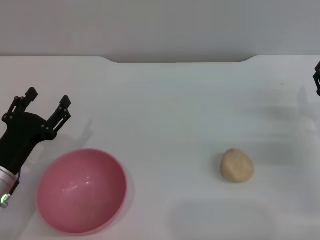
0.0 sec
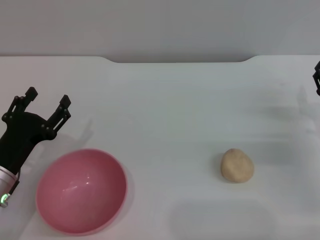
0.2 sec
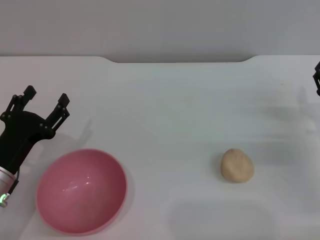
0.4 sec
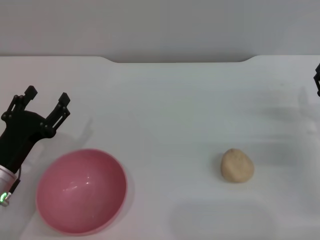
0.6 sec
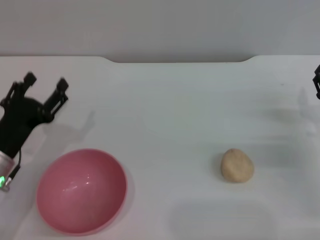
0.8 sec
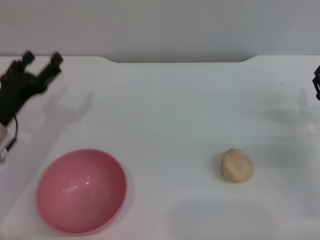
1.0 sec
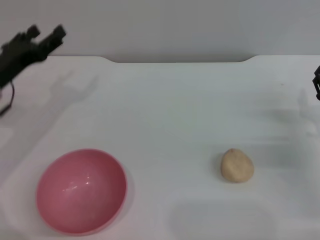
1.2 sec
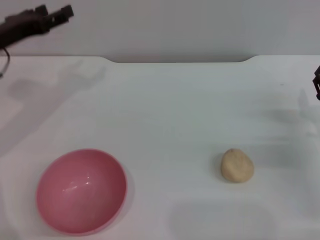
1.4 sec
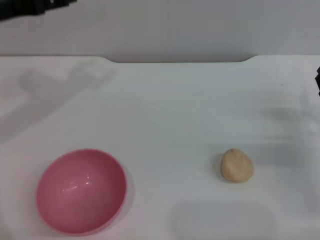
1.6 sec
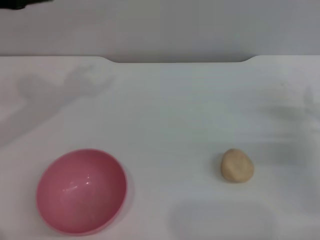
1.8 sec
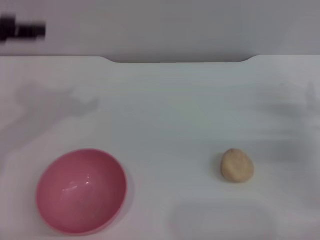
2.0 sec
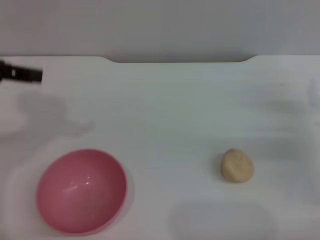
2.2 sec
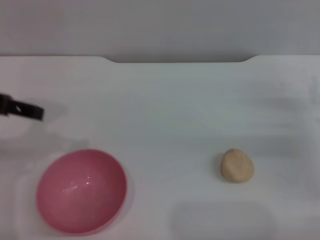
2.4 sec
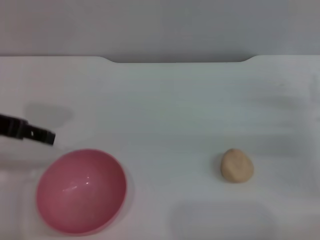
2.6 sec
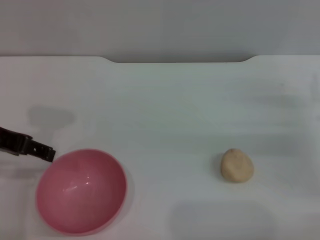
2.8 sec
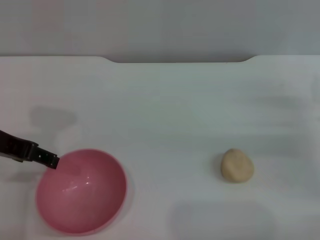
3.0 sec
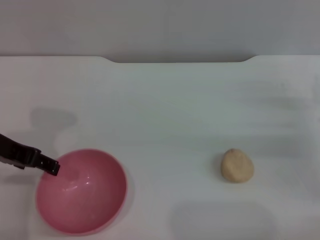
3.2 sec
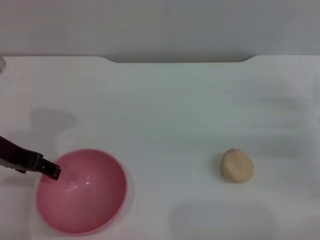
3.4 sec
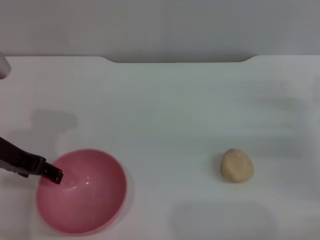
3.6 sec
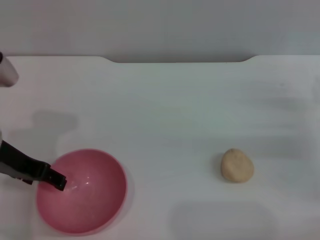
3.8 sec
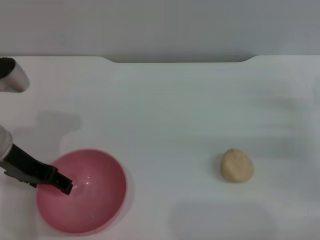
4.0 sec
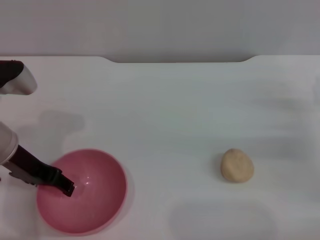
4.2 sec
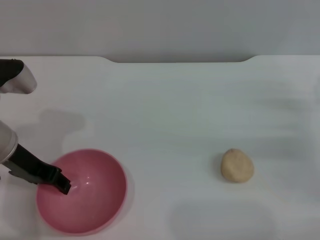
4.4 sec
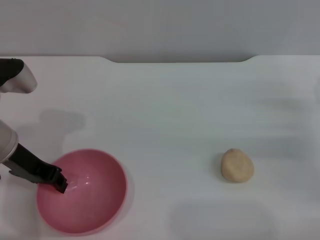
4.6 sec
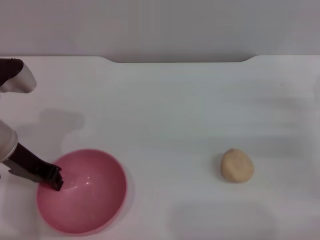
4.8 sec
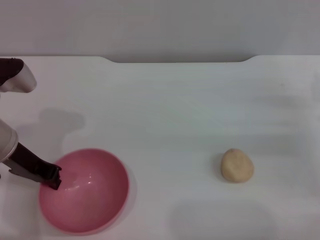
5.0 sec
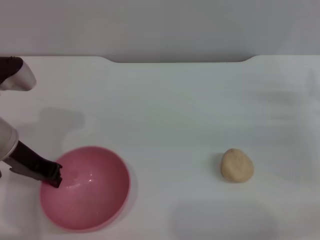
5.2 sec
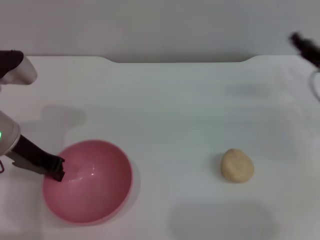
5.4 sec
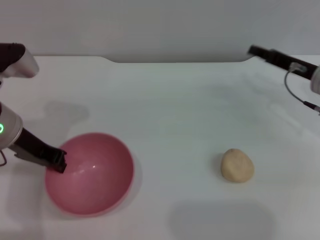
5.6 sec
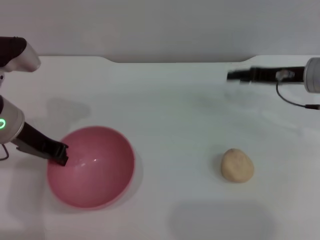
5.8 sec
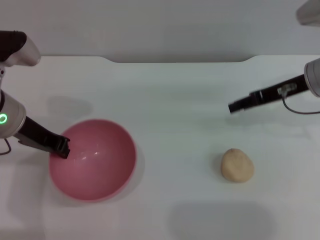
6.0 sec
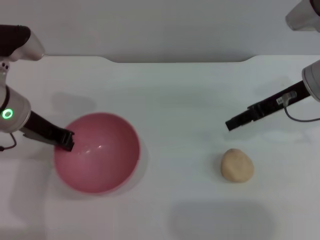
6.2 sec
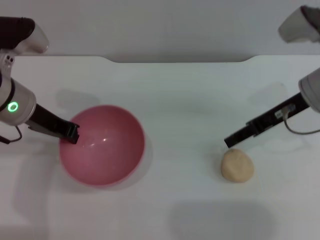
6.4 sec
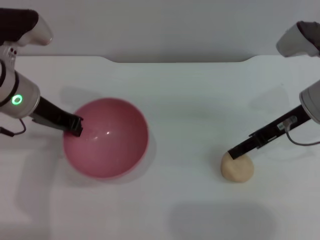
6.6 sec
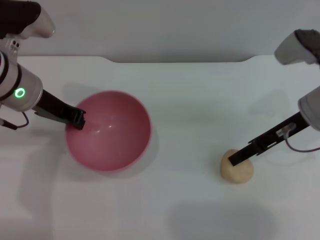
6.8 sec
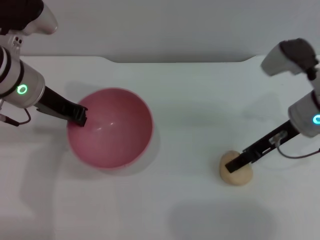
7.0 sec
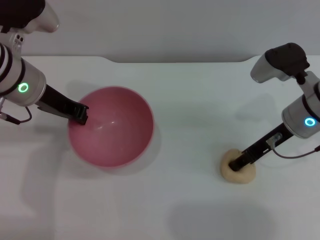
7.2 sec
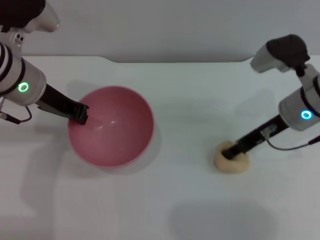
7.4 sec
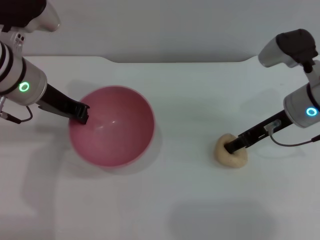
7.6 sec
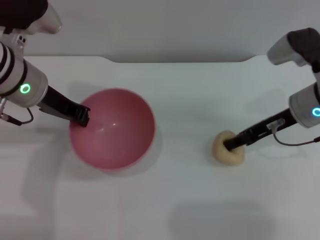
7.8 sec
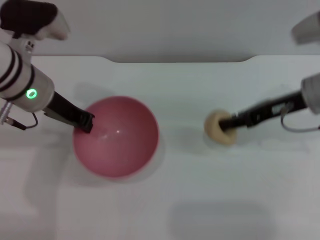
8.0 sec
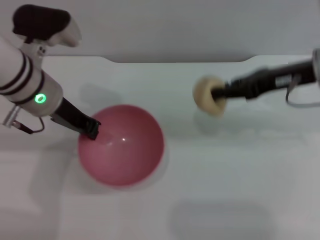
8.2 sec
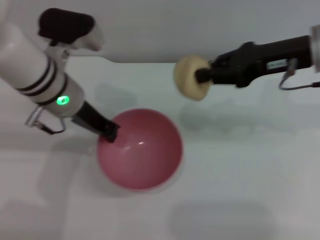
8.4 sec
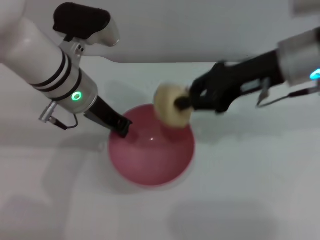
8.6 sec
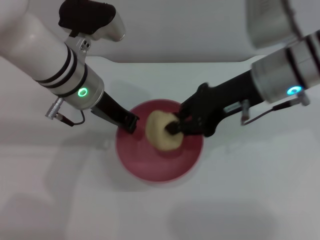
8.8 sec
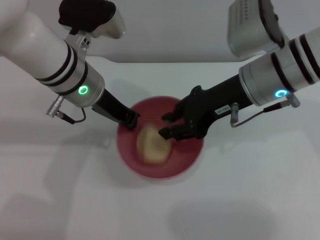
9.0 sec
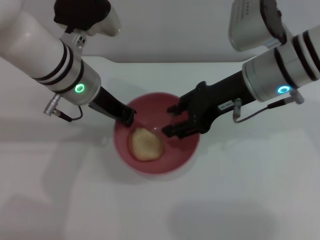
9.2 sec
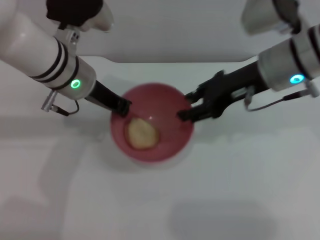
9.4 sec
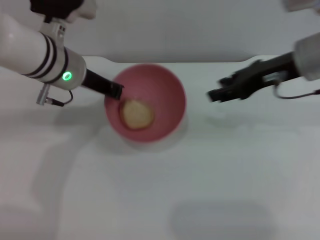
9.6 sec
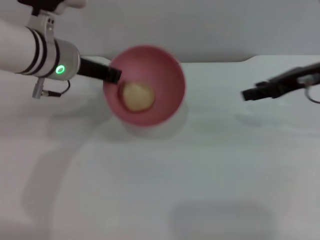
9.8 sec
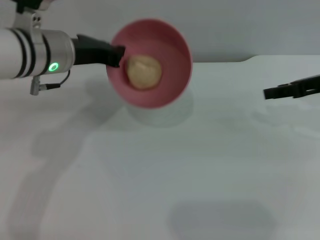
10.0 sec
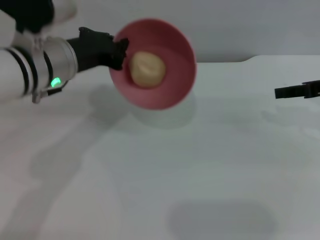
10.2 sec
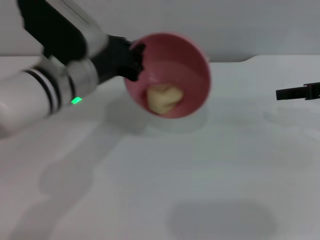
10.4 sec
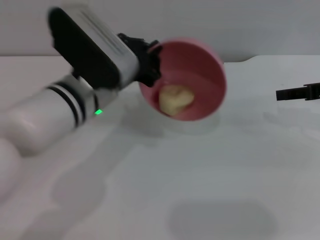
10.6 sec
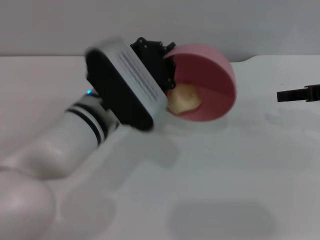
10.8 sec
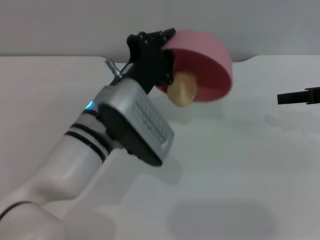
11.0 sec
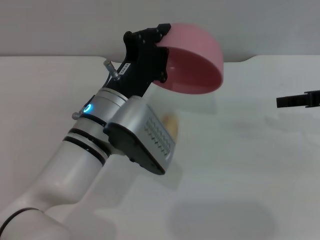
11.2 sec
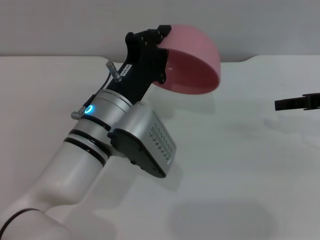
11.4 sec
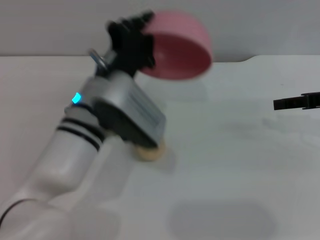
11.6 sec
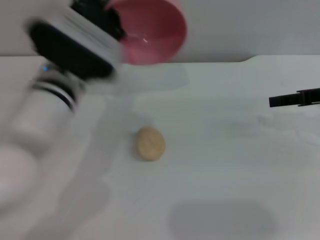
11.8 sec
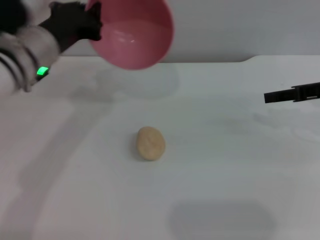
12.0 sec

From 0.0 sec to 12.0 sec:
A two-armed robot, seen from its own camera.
Task of the whole recording: put the egg yolk pastry into the pink bowl and pour it out repeatedly.
Step, from 0.0 sec to 5.8 sec: Pick up the bowl with the left gripper.
Step, from 6.0 sec to 7.8 sec: Pick up the egg yolk pastry with the right gripper.
Step, from 8.0 sec to 9.2 sec: Place the egg yolk pastry into the bowl.
Step, from 9.4 sec to 11.6 sec: Pour the egg yolk pastry out of bowl.
From 0.0 sec to 1.6 sec: The left gripper goes some 25 cm upward and forward.
From 1.6 sec to 3.0 sec: The left gripper shifts about 10 cm backward.
From 3.0 sec to 4.4 sec: The left gripper is displaced downward by about 5 cm.
From 4.4 sec to 6.0 sec: The right gripper moves upward, forward and to the left, some 15 cm. The left gripper closes its fingers.
From 7.6 sec to 9.0 sec: The left gripper heads to the right, covering about 5 cm. The right gripper moves to the left and upward, approximately 10 cm, and closes up.
From 9.0 sec to 10.4 sec: The right gripper heads to the right, covering approximately 20 cm, and opens.

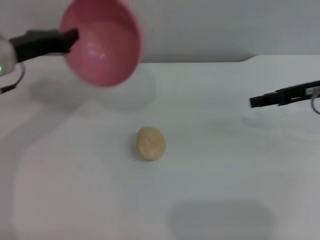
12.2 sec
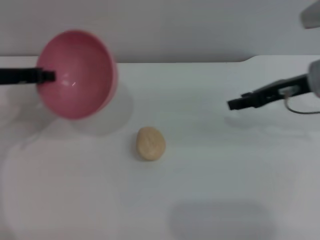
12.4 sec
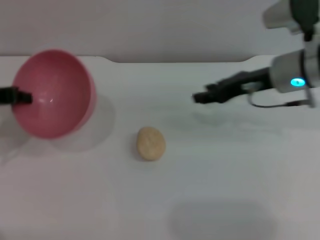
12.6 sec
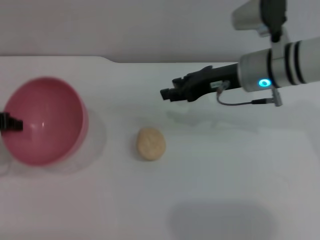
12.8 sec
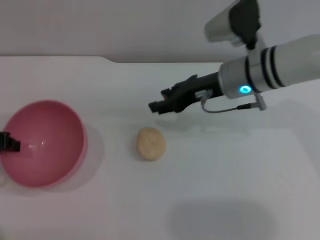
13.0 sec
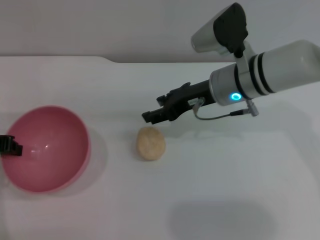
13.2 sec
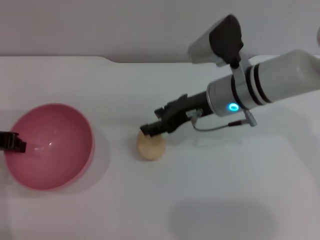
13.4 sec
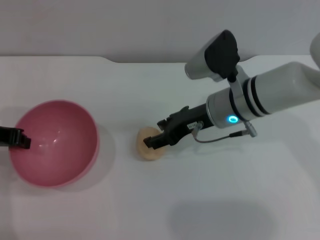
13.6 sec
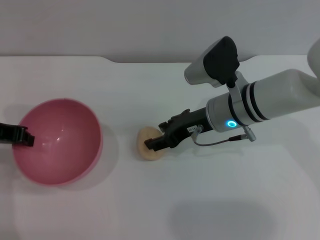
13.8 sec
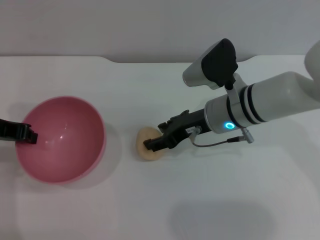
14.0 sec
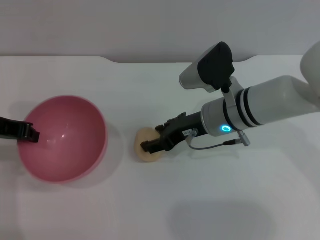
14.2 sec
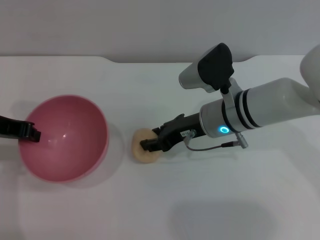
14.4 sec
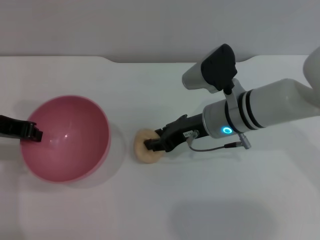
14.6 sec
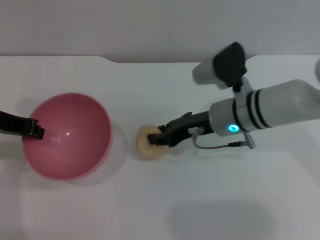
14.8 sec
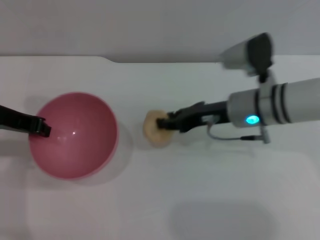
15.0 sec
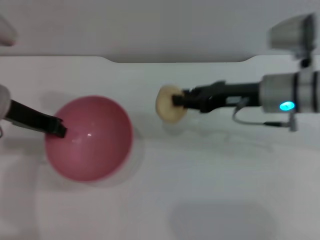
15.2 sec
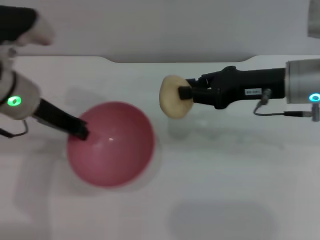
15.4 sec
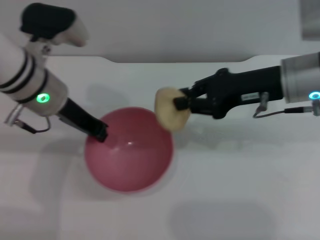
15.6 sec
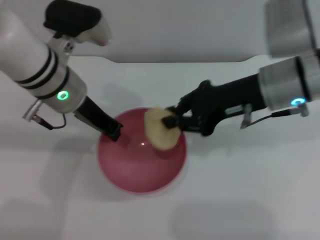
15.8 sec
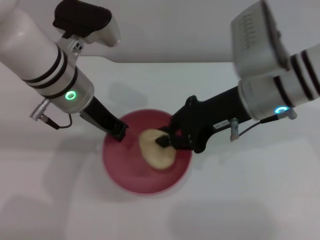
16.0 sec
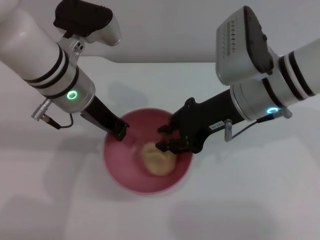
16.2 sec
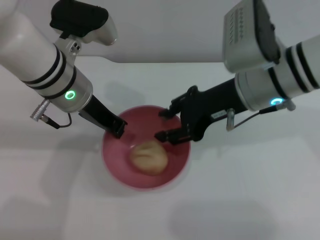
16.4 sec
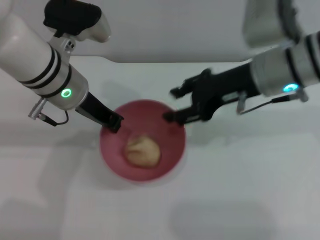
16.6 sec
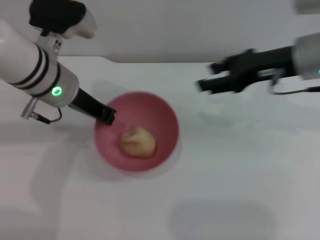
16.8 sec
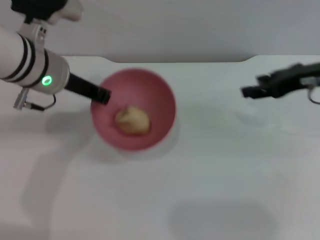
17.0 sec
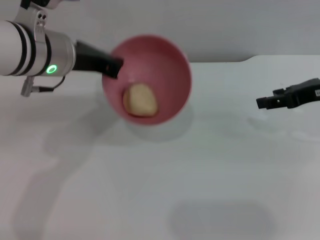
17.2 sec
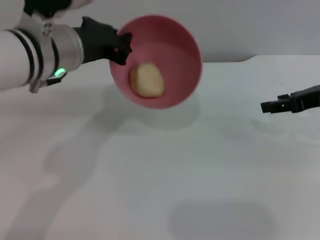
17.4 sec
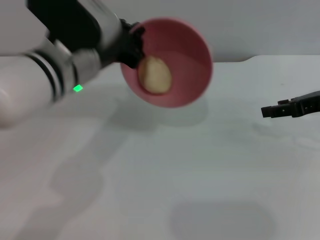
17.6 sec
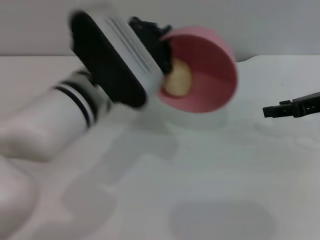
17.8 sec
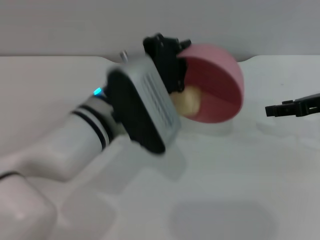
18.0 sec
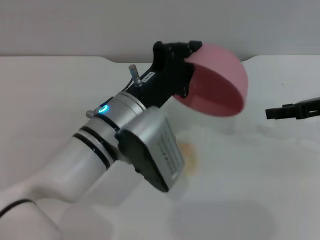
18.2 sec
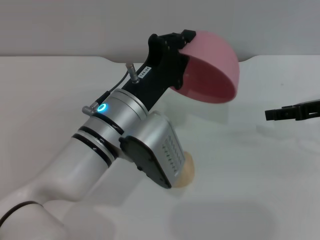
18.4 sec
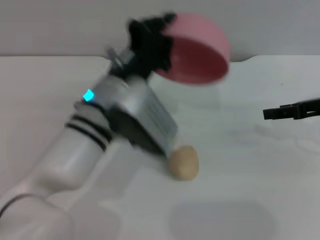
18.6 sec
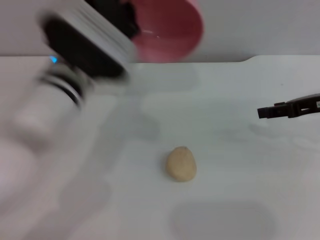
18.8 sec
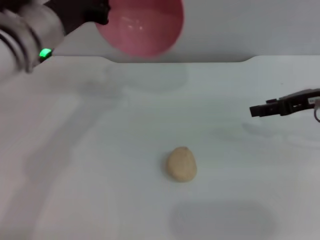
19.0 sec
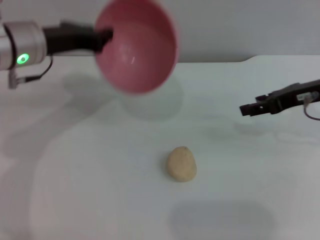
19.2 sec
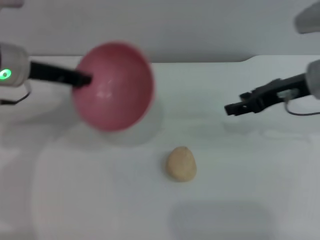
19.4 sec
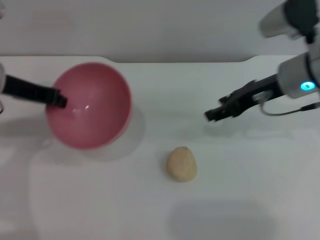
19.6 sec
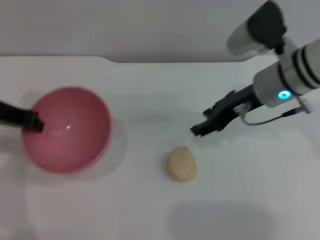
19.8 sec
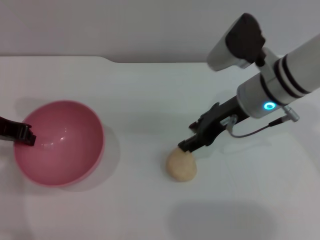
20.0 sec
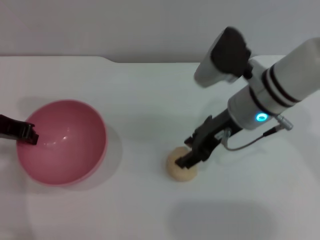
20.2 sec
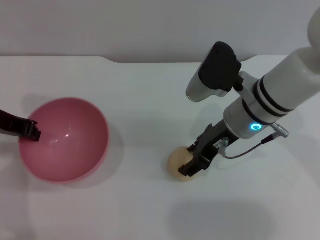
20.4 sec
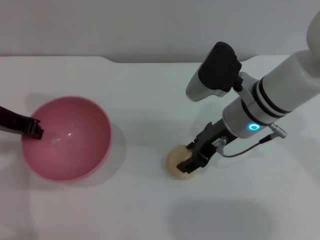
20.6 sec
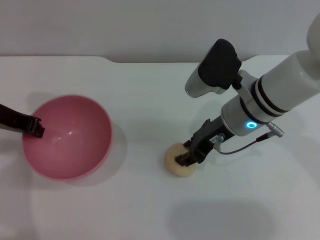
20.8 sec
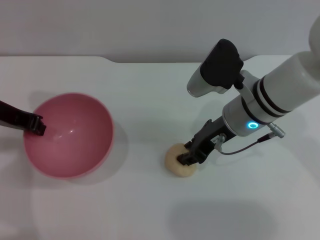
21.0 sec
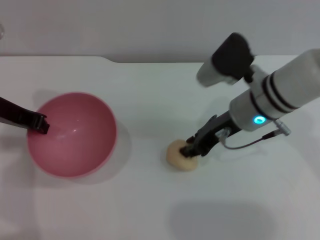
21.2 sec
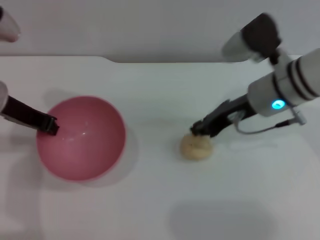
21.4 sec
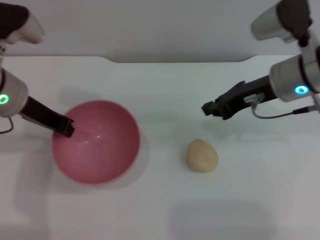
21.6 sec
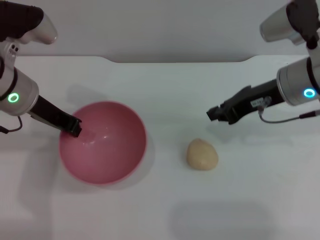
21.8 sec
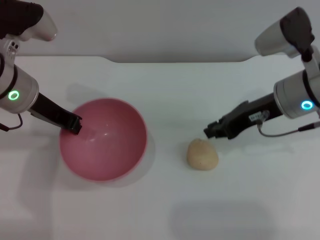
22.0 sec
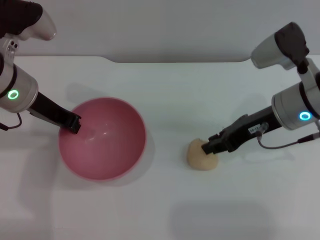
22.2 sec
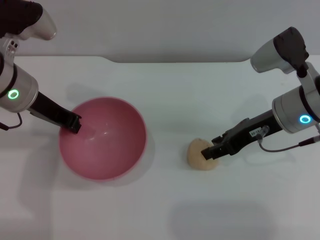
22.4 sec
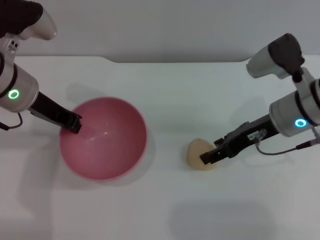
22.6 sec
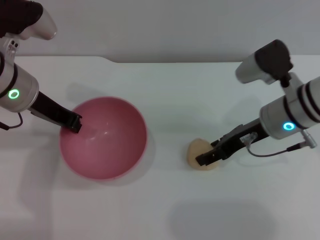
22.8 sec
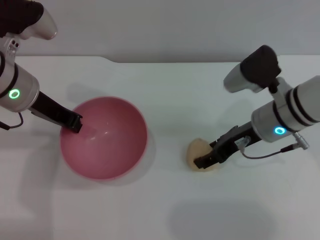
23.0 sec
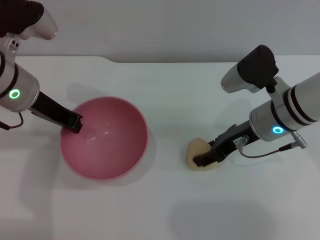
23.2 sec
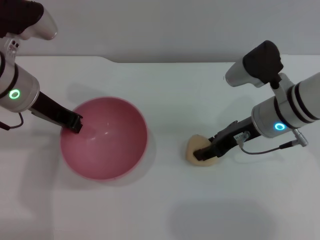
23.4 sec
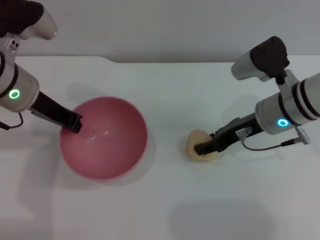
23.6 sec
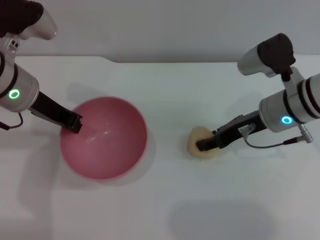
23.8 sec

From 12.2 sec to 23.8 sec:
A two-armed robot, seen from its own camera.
Task of the whole recording: put the egg yolk pastry into the pink bowl and pour it out repeatedly.
Step, from 12.2 sec to 15.0 sec: Pick up the egg yolk pastry with the right gripper.
Step, from 15.2 sec to 16.4 sec: Place the egg yolk pastry into the bowl.
Step, from 16.6 sec to 18.2 sec: Pour the egg yolk pastry out of bowl.
From 12.2 sec to 13.6 sec: The right gripper travels to the left by about 15 cm, while the left gripper heads backward, covering some 5 cm.
From 13.6 sec to 15.0 sec: The right gripper closes up.
From 15.0 sec to 16.6 sec: The left gripper travels to the right by about 10 cm. The right gripper is displaced upward by about 10 cm.
From 16.6 sec to 18.0 sec: The left gripper is displaced backward and to the right by about 10 cm, while the right gripper is displaced to the right by about 15 cm.
From 18.0 sec to 19.4 sec: The left gripper is displaced to the left and forward by about 15 cm, while the right gripper goes approximately 5 cm to the left.
From 19.4 sec to 21.0 sec: The left gripper changes place by roughly 5 cm, while the right gripper moves to the left, approximately 10 cm.
From 21.0 sec to 22.4 sec: Both grippers travel together to the right, about 5 cm. The right gripper closes, then opens again.
From 22.4 sec to 23.8 sec: The right gripper opens and closes again.
